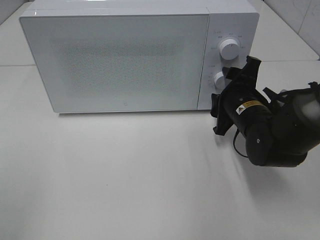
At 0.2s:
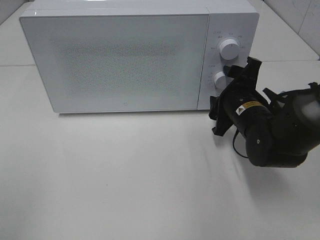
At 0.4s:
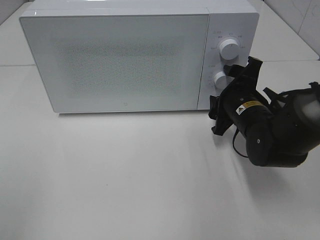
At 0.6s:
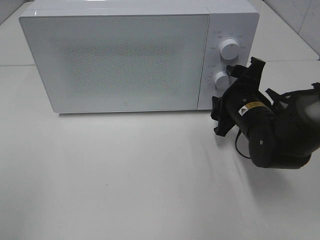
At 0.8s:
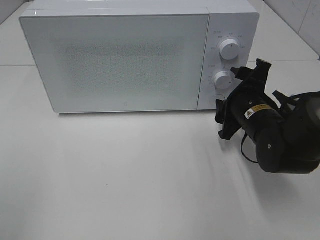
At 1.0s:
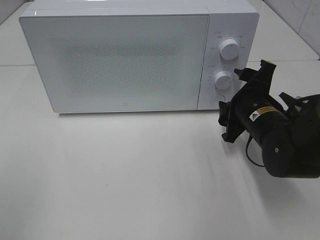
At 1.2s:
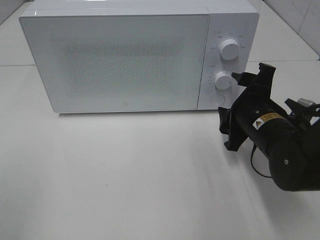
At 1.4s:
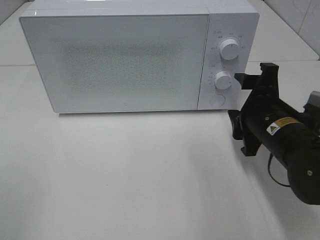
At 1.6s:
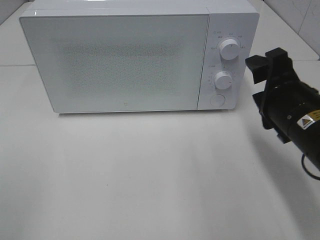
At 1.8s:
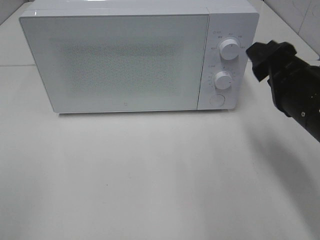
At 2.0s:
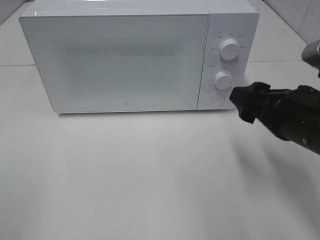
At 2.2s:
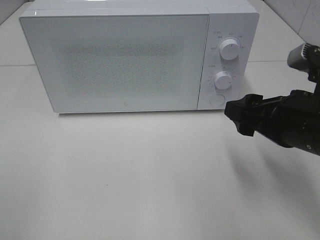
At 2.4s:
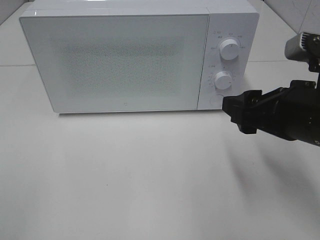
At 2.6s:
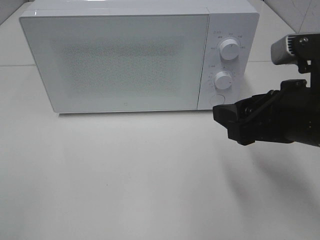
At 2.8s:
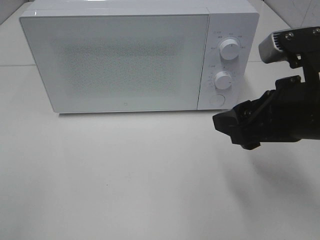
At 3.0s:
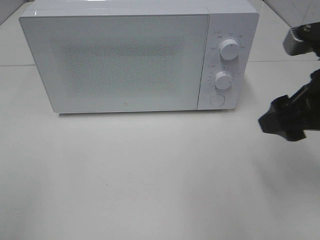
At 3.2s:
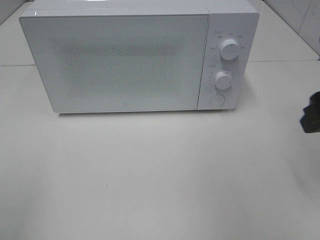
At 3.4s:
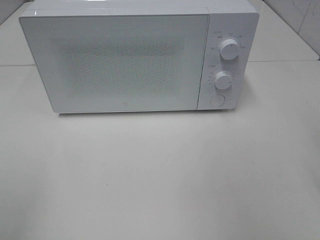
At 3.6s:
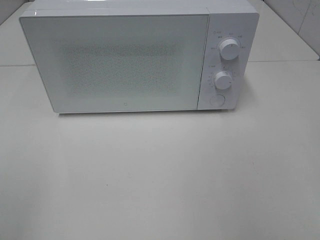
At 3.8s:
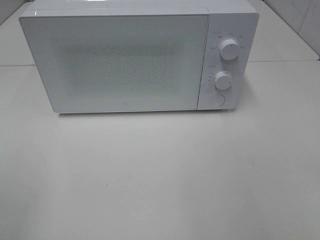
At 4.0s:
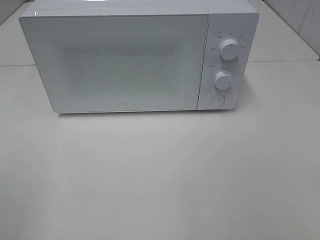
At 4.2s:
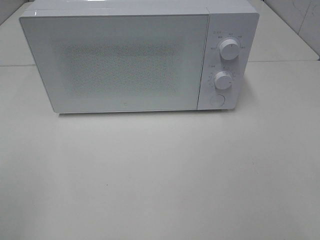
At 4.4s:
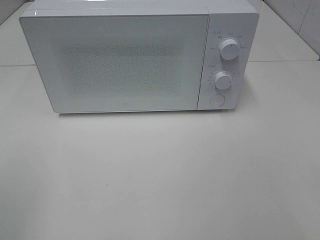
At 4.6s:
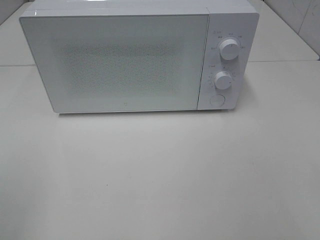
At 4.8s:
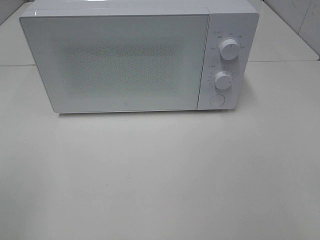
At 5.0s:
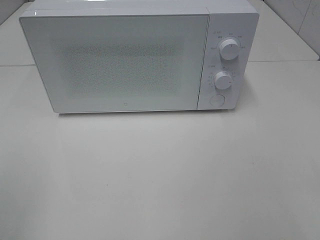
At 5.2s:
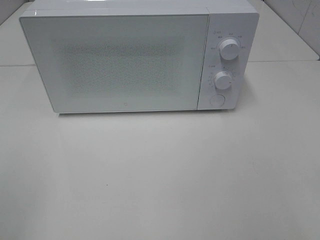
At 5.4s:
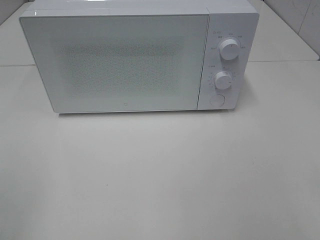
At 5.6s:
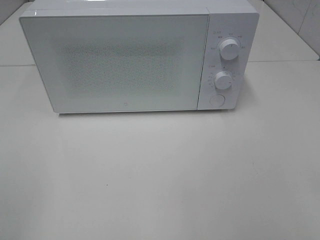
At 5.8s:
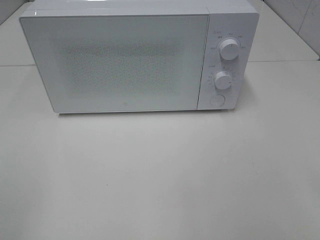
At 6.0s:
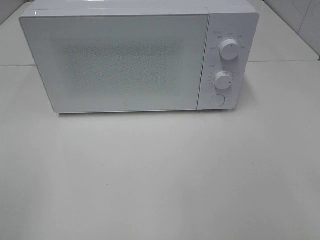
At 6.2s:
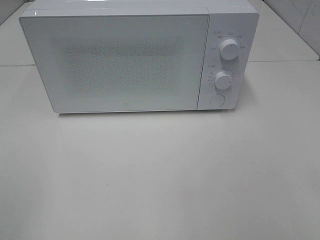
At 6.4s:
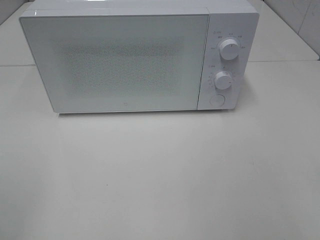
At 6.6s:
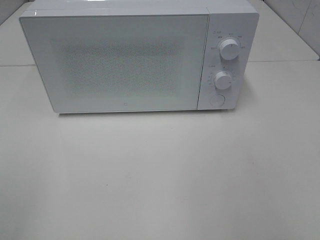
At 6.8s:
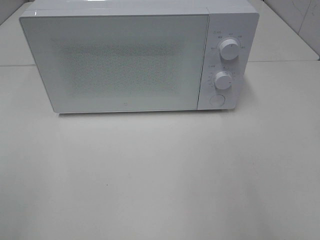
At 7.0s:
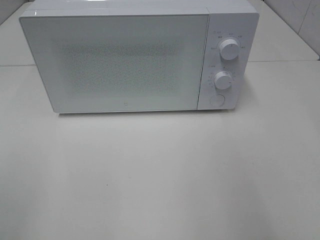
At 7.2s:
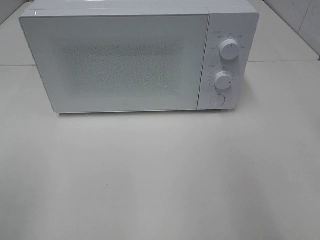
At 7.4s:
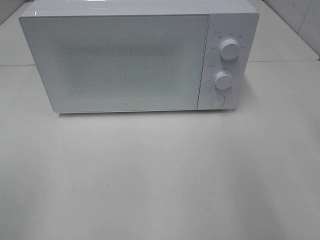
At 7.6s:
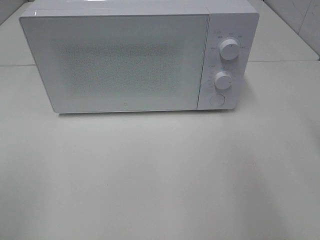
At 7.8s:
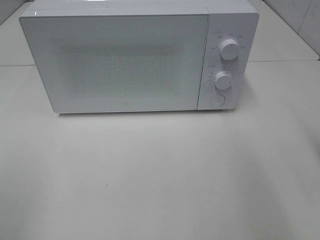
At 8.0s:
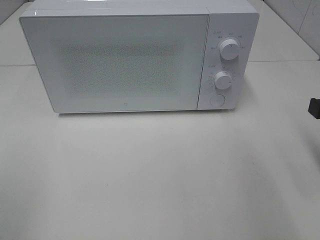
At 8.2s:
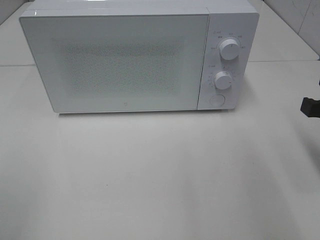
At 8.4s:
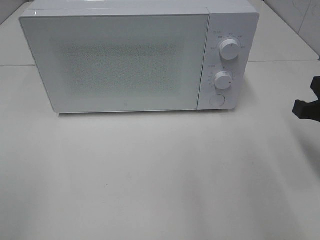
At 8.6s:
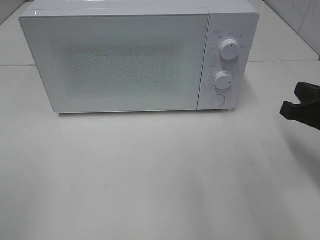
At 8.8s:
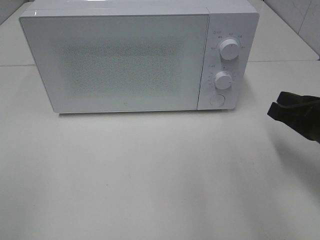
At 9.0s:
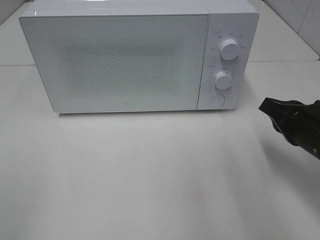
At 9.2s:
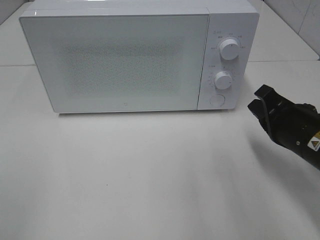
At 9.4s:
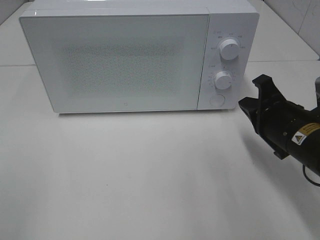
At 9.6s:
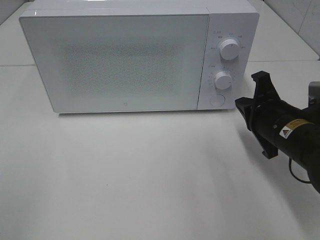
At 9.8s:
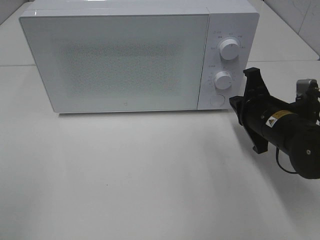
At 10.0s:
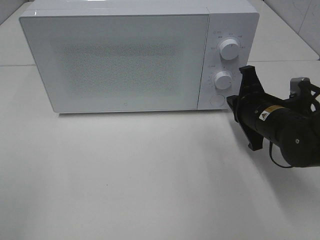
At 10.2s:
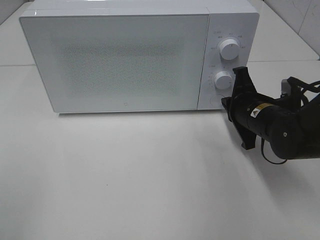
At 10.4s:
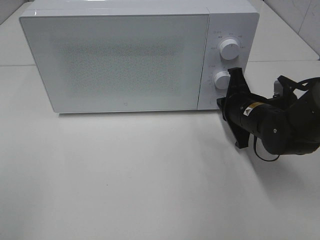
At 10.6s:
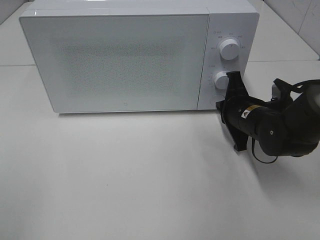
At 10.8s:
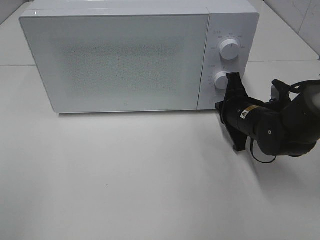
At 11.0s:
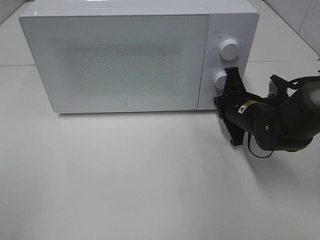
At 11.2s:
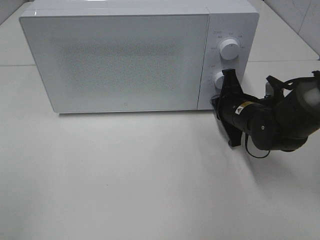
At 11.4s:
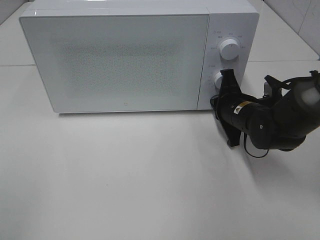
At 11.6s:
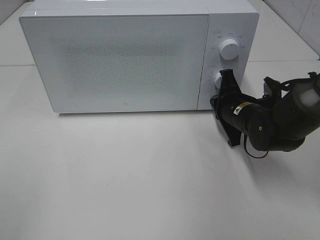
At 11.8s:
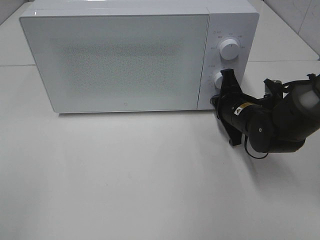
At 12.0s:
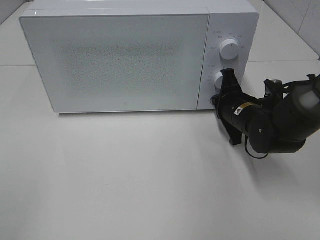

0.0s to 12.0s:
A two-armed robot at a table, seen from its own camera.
Task of the whole recording: Heat the burger.
0.0s to 1.6s: The right gripper is displaced backward and upward by some 10 cm.
1.6s to 3.0s: The right gripper heads upward, covering approximately 5 cm.
3.0s to 4.4s: The right gripper moves backward, approximately 20 cm.
4.4s to 6.0s: Both grippers stay about where they are.
7.6s to 9.0s: The right gripper is displaced downward and forward by approximately 15 cm.
9.0s to 10.4s: The right gripper travels forward, to the left and downward by about 15 cm.
10.4s to 12.0s: The grippers stay close to where they were, moving slightly.

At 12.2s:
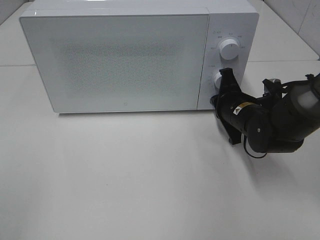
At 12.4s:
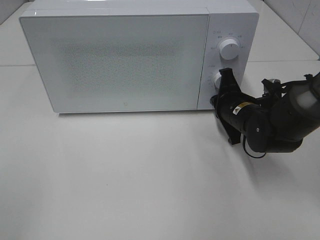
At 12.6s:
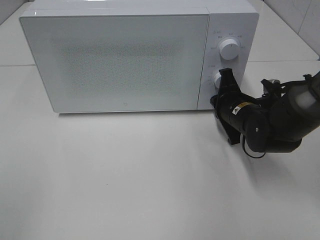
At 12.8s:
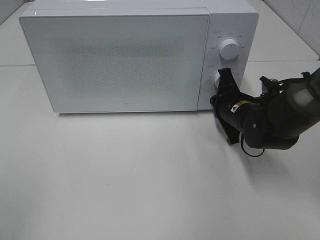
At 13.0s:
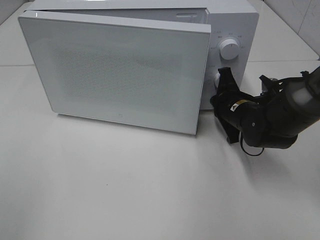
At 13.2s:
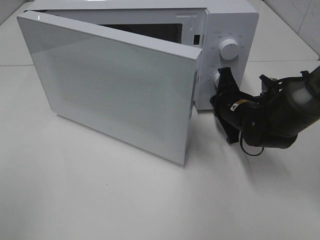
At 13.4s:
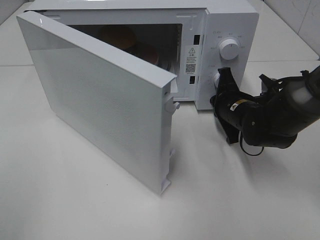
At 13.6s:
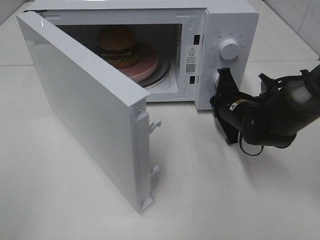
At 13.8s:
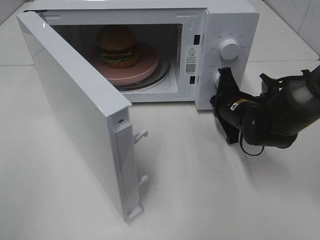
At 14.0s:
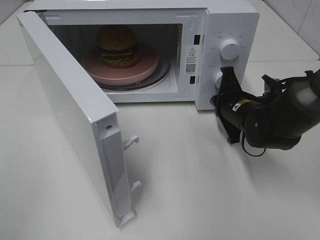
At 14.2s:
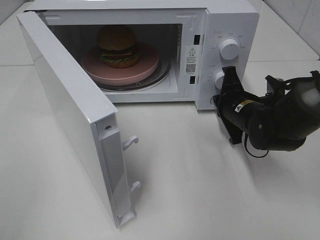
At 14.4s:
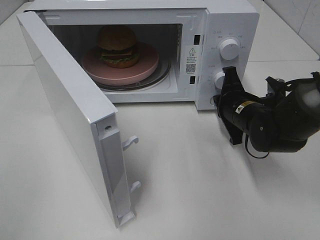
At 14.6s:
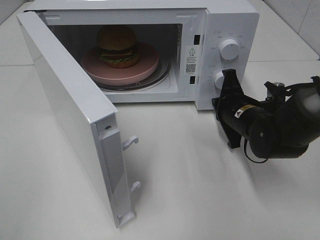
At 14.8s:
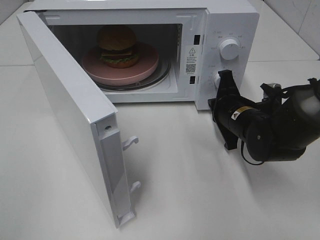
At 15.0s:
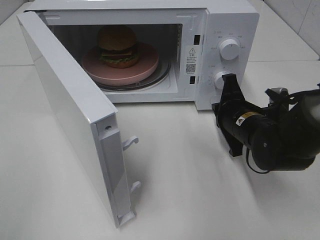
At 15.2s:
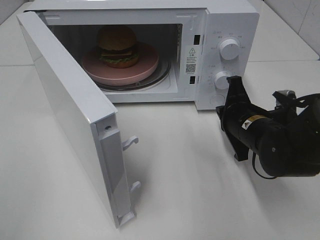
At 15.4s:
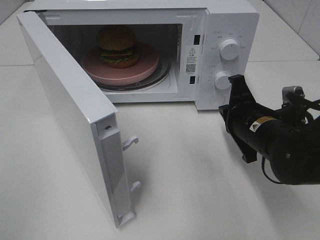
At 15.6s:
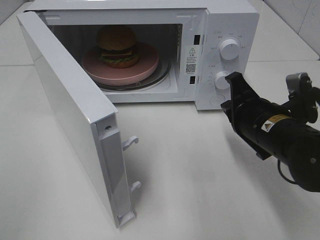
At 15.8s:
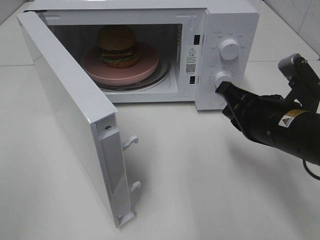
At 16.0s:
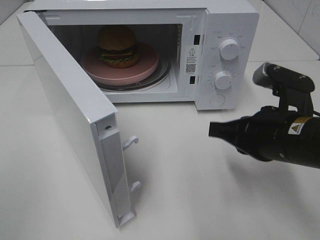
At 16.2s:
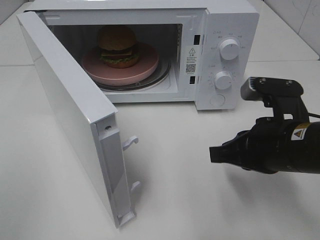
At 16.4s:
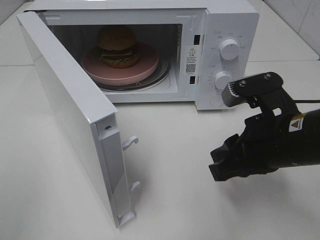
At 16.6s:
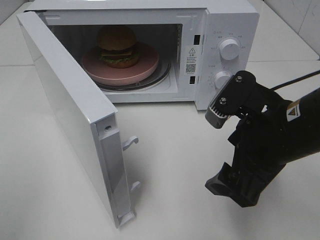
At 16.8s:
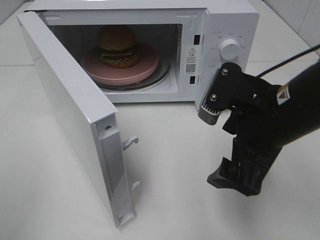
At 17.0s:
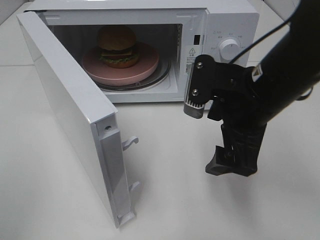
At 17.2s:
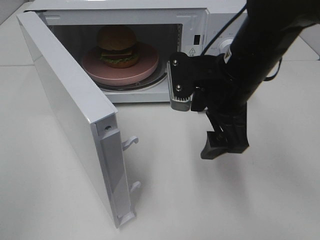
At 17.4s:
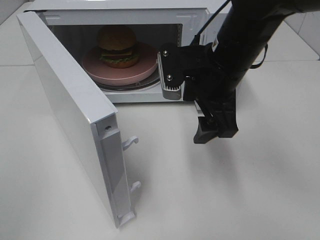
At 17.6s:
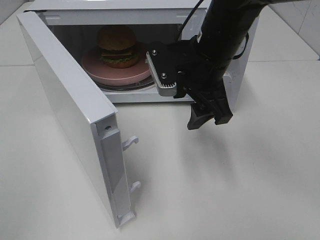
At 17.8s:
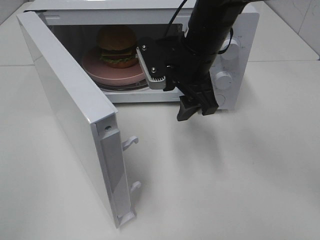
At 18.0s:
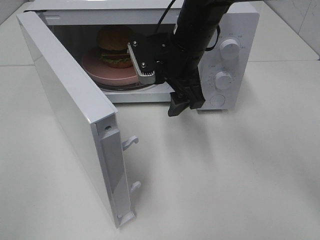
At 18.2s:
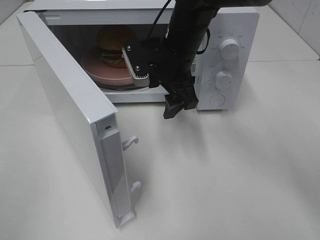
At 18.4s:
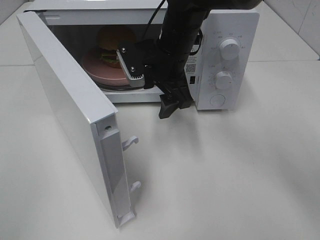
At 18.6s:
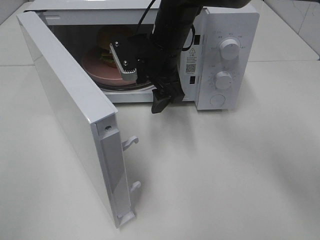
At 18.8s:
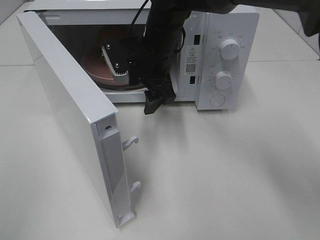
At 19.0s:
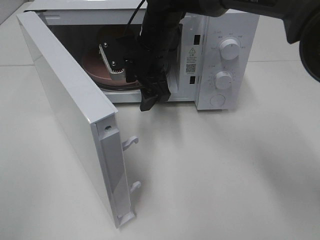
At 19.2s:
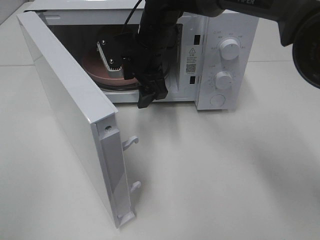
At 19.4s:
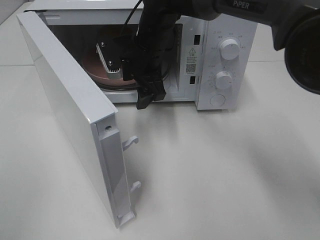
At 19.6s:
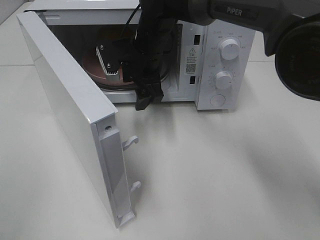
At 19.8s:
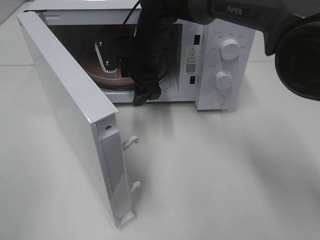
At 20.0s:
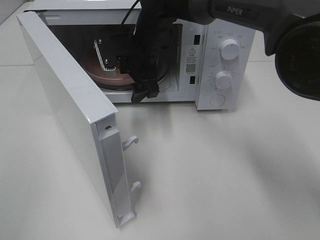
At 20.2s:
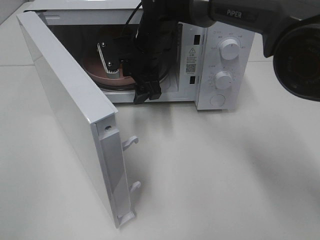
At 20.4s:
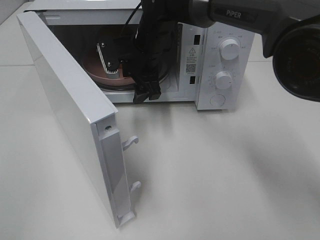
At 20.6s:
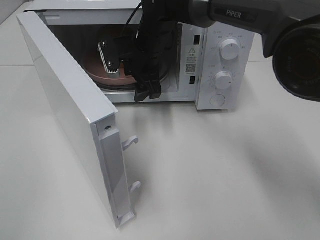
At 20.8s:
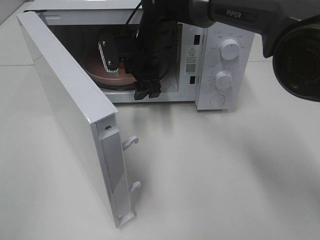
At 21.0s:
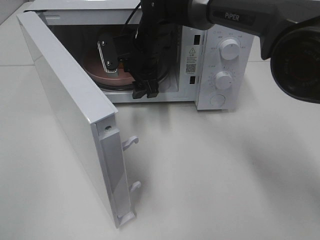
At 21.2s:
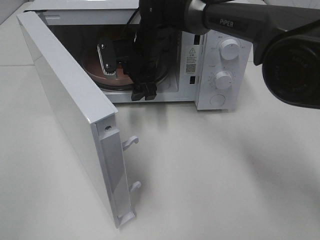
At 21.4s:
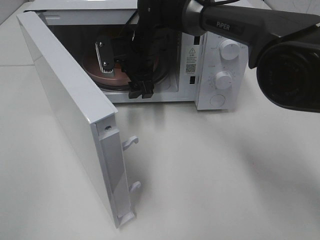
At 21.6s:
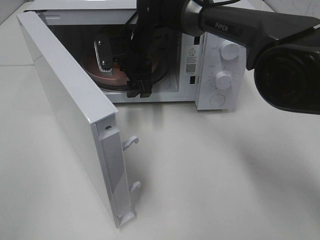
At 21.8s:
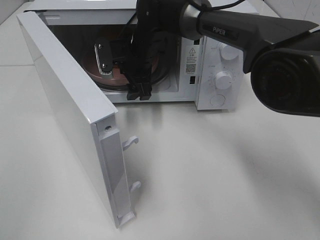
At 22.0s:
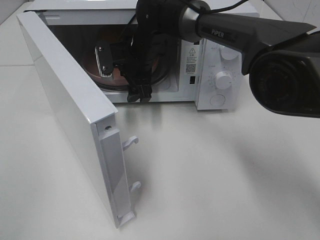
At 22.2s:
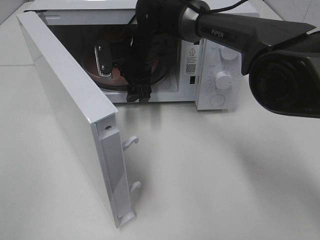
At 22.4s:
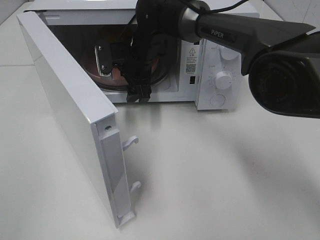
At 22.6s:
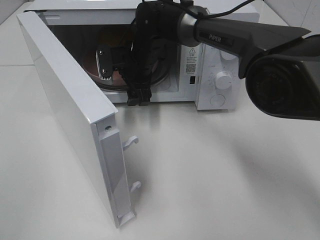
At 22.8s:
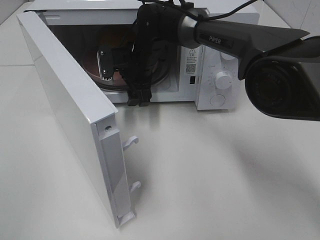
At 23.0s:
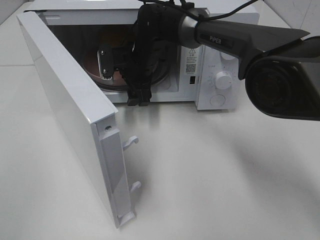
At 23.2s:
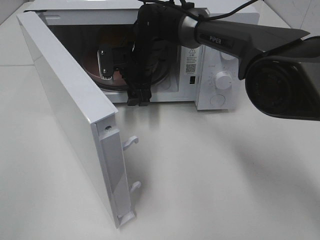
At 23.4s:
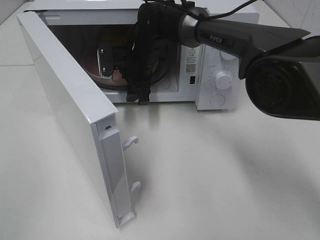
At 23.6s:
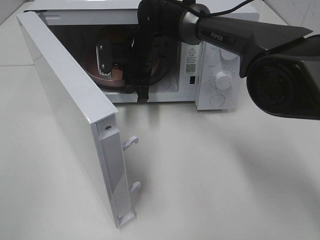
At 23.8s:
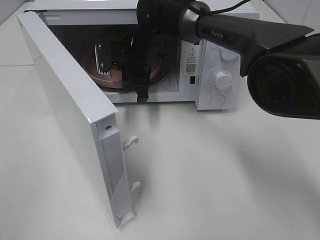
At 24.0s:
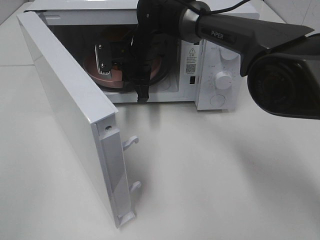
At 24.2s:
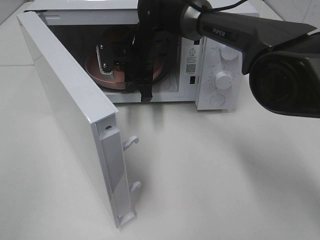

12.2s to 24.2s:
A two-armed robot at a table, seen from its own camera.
Task of the whole recording: Heat the burger.
Step, 12.2s to 14.4s: Right hand: press the switch.
Step, 14.6s to 23.6s: Right hand: grab the plate with the hamburger.
13.8s to 15.2s: The right gripper is displaced backward by about 5 cm.
15.2s to 16.6s: The right gripper heads upward and backward, covering roughly 15 cm, and opens.
16.6s to 18.2s: The right gripper heads forward and to the left, covering approximately 20 cm.
18.2s to 19.8s: The right gripper shifts roughly 10 cm to the left and forward.
19.8s to 22.6s: The grippers make only small movements.
22.6s to 24.2s: The right gripper closes.
